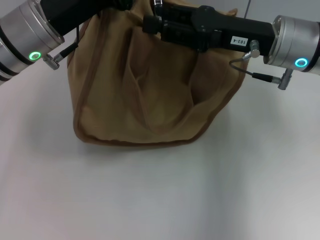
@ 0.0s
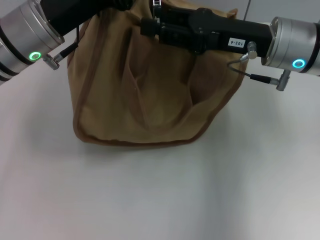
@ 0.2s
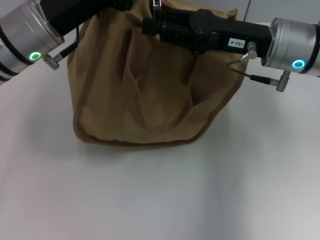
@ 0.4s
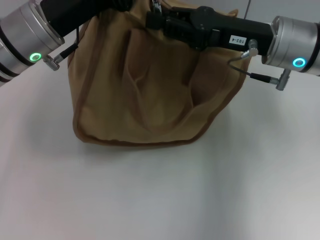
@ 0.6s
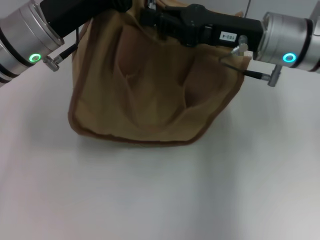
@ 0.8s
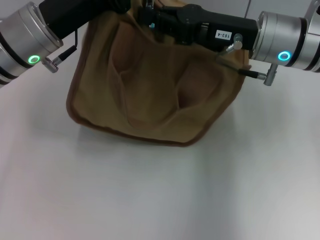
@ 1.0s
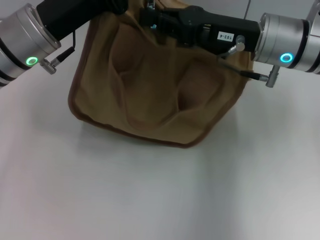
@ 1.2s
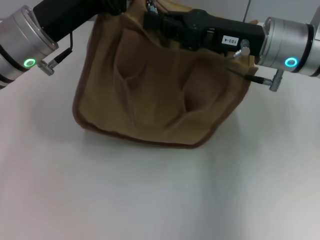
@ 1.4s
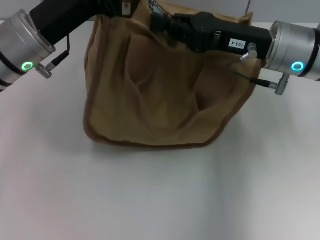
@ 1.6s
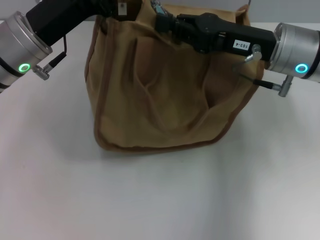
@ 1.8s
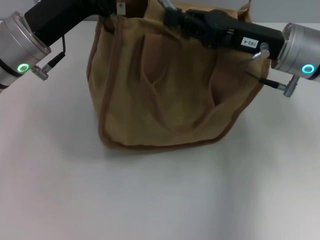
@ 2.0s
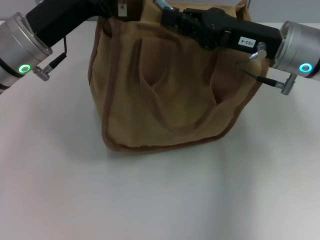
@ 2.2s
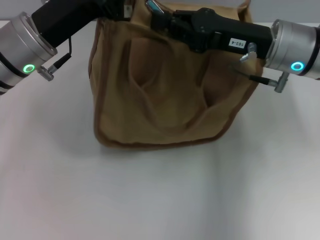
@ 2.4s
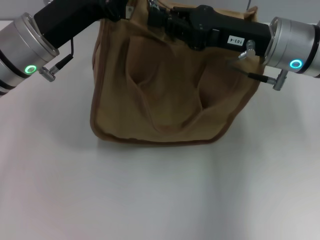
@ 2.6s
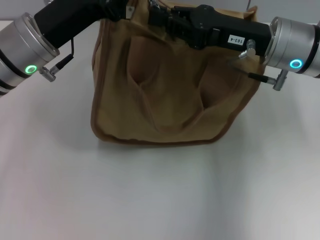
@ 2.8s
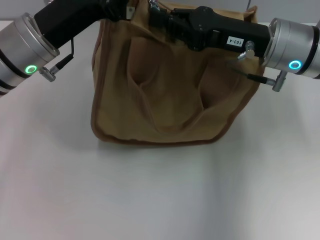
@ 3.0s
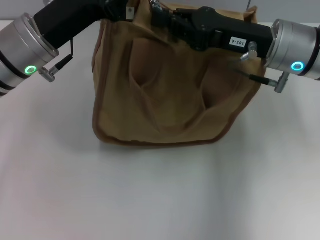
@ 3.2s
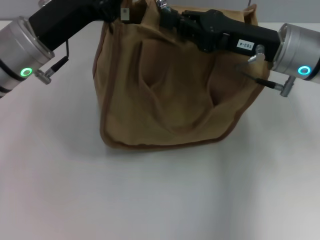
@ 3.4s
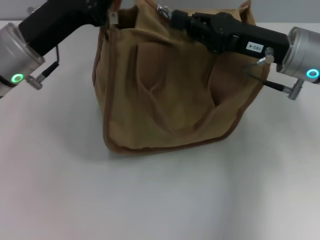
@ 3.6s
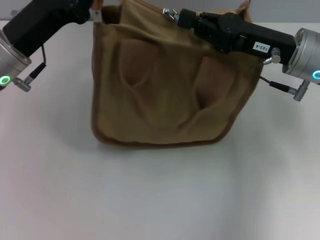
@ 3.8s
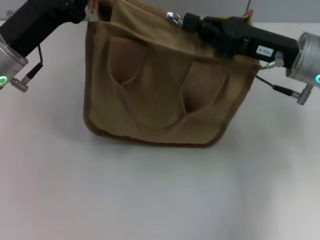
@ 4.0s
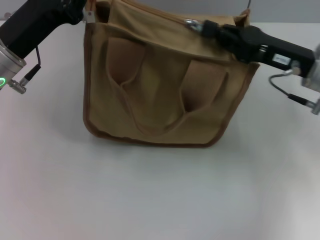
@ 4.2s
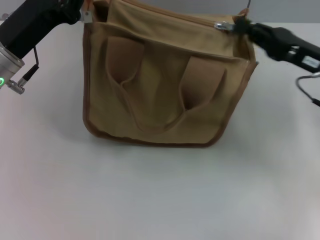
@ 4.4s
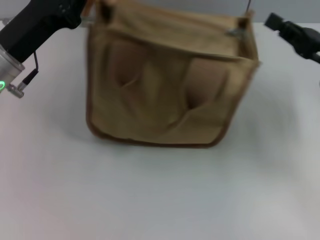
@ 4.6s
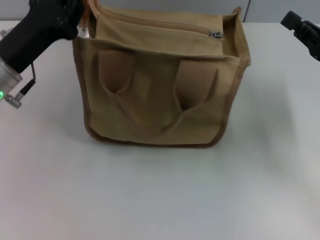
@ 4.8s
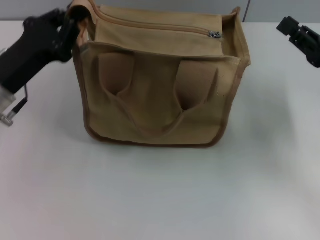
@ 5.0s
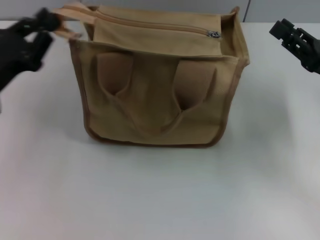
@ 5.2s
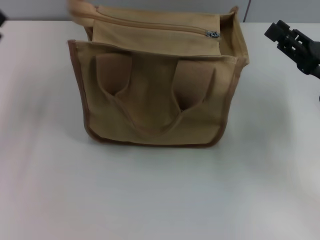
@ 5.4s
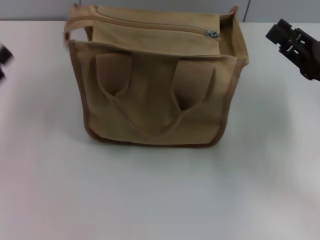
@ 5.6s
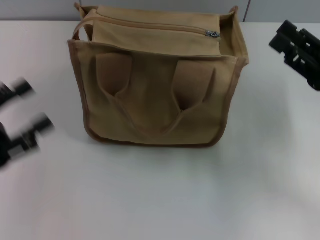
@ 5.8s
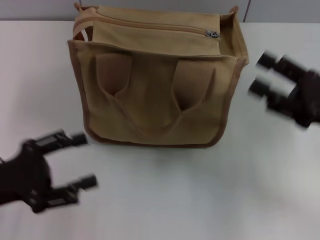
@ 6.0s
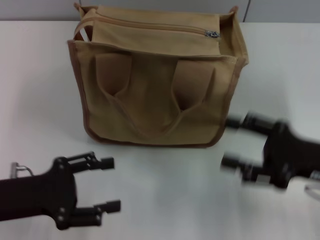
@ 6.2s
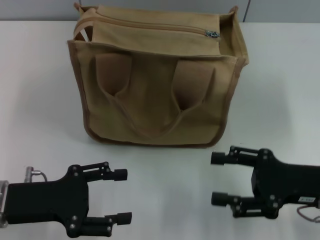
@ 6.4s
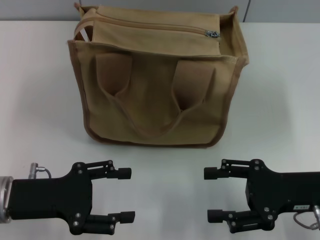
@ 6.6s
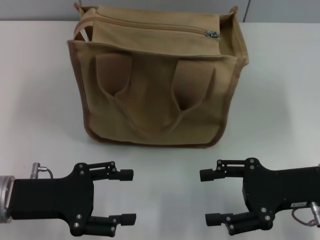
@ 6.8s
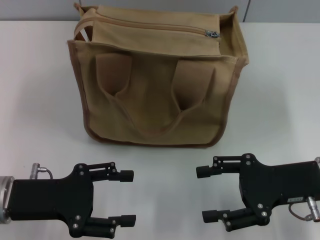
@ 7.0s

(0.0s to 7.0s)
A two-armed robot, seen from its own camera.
Step, 0.0s - 4.4s: Pull up the zipper with your right hand.
Step, 4.6s - 5.2s: Grab the zipper with your left hand.
0.0s - 1.4s: The right gripper closes its fingers.
1.4s - 2.8s: The grippers move only a little.
2.8s - 4.2s: The right gripper is displaced to the right by approximately 5 cm.
4.2s - 5.6s: The right gripper moves to the right and backward, roughly 10 cm, and opens up. The left gripper heads to the left and backward, covering about 15 cm.
5.6s - 7.0s: The right gripper ends up some 5 cm from where it was, and opens up. Meanwhile the left gripper is displaced to the right by approximately 10 cm, and opens up.
